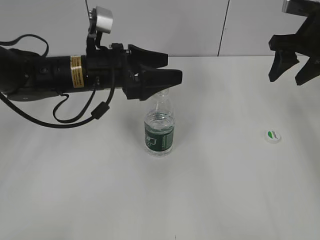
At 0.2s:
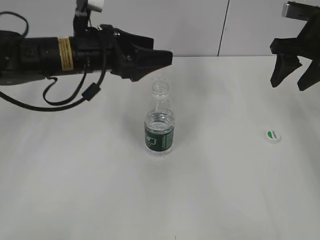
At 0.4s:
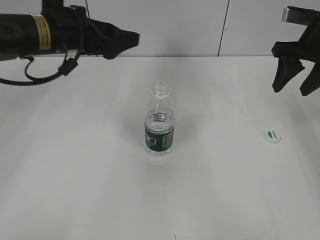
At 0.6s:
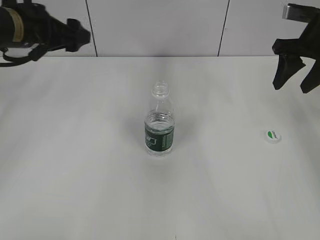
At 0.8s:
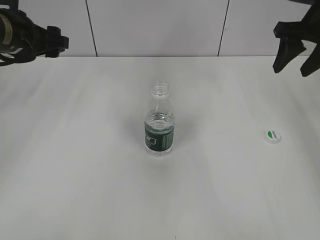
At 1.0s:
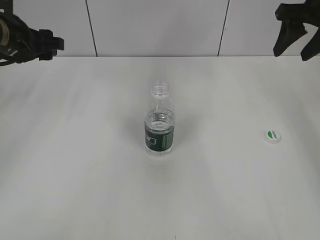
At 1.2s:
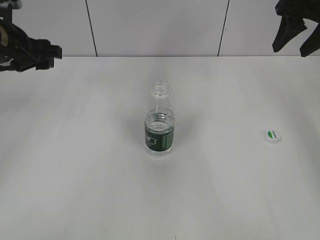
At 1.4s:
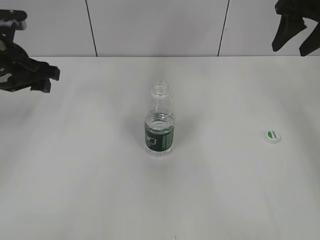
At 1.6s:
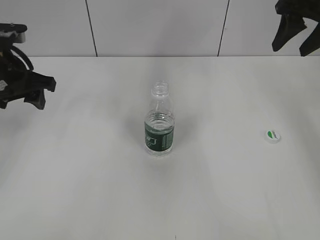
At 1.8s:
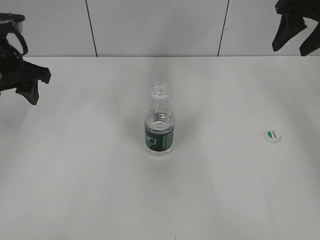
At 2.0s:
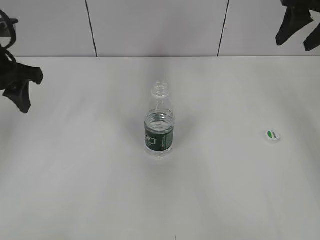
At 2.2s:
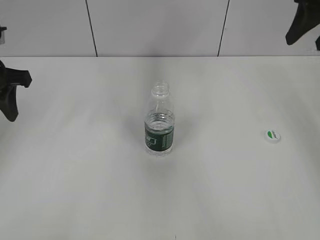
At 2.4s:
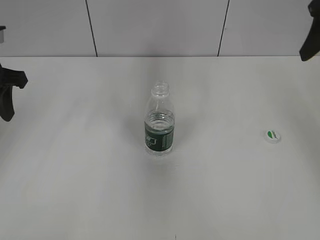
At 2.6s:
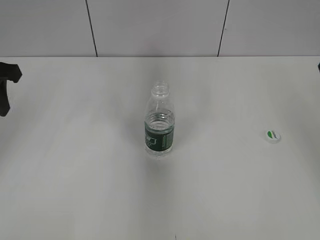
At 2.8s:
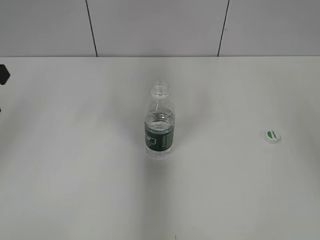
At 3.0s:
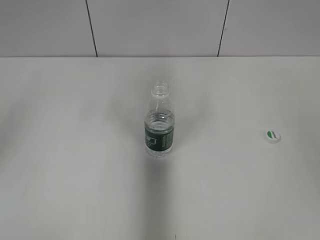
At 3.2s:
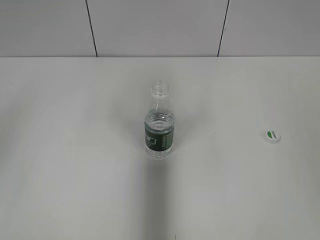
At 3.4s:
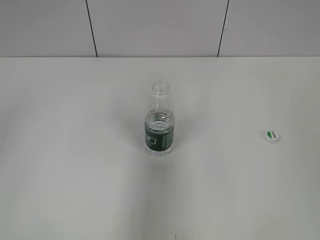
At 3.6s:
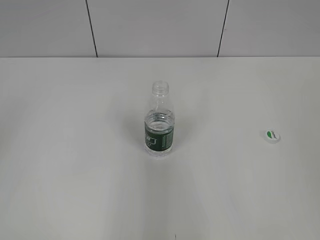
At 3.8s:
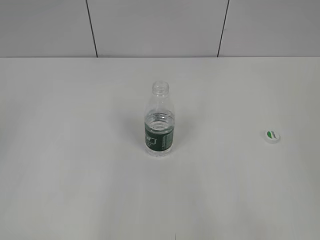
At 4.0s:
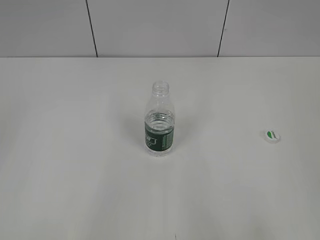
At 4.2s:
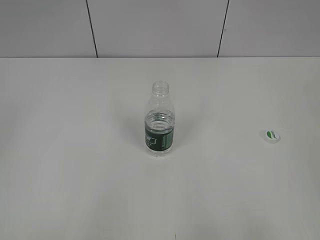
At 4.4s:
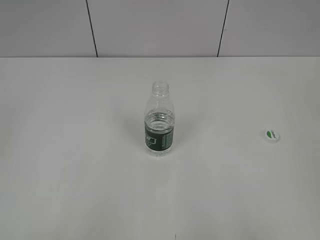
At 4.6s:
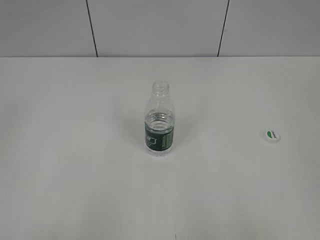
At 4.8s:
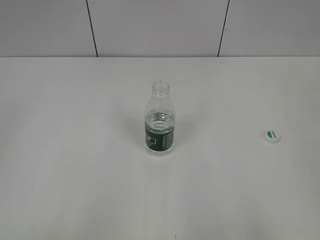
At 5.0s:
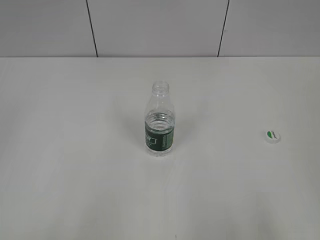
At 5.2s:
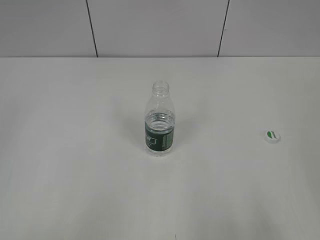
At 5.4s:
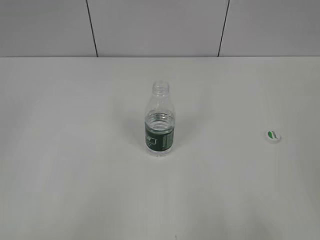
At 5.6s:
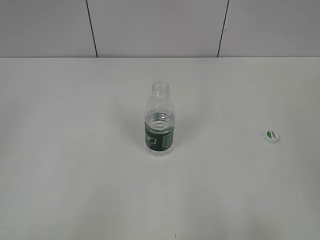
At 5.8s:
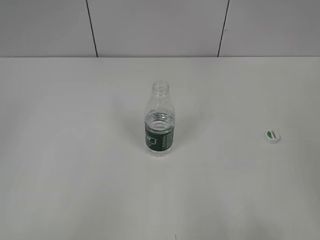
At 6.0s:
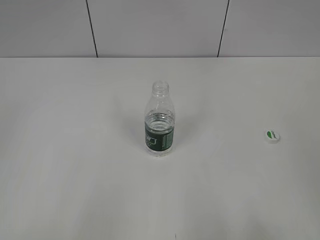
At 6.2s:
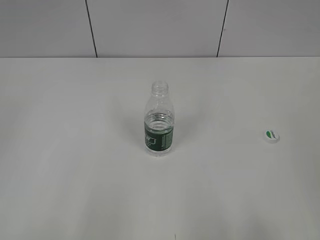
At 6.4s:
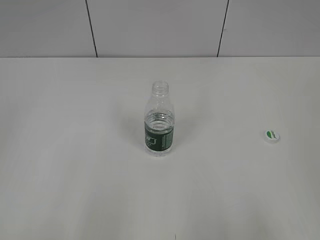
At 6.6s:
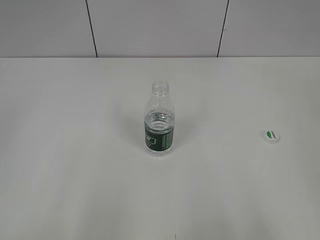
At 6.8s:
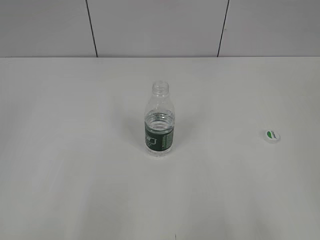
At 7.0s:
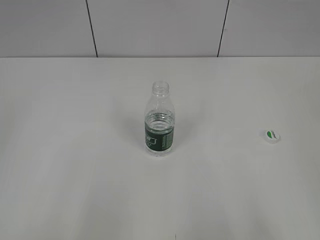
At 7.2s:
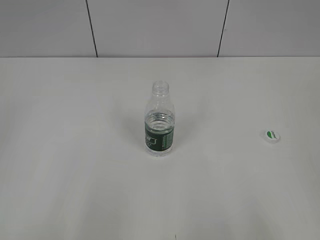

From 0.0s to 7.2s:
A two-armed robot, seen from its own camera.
From 0.0s to 1.4s: The left gripper is displaced to the left by some 15 cm, while the right gripper travels upward by some 5 cm.
From 1.4s to 2.8s: The left gripper moves backward and upward, about 10 cm, and closes. The right gripper is displaced backward by some 15 cm.
From 2.8s to 4.4s: The two grippers go roughly 30 cm backward.

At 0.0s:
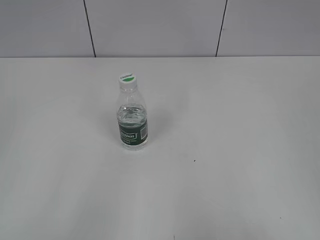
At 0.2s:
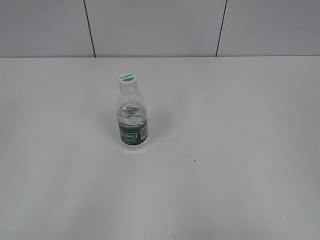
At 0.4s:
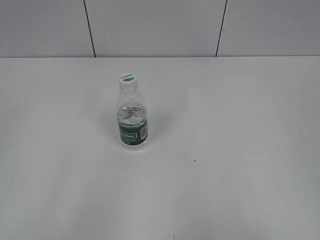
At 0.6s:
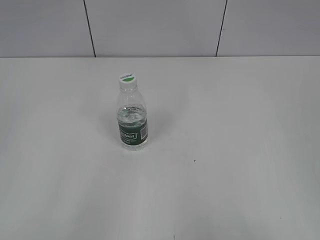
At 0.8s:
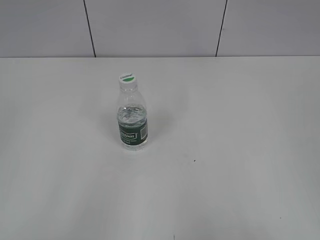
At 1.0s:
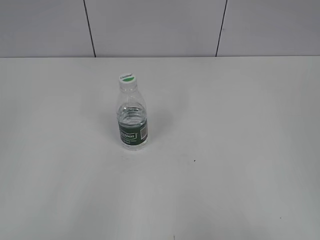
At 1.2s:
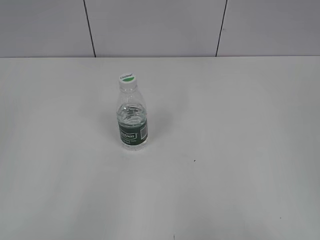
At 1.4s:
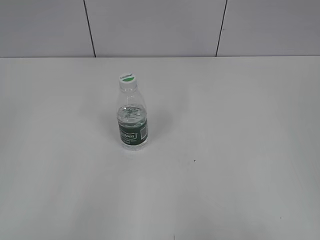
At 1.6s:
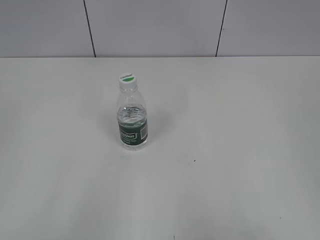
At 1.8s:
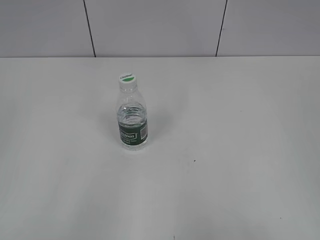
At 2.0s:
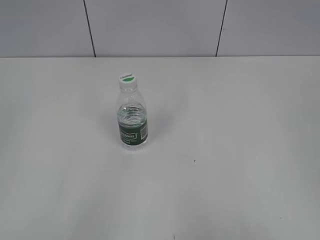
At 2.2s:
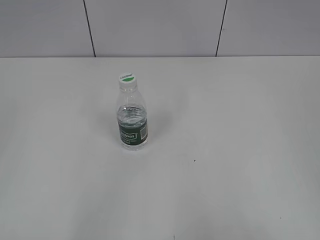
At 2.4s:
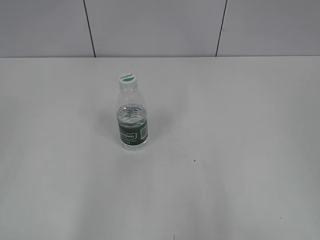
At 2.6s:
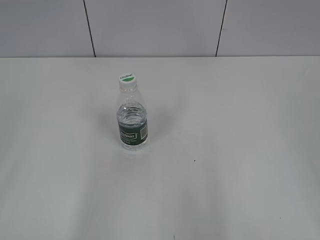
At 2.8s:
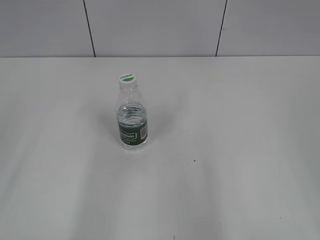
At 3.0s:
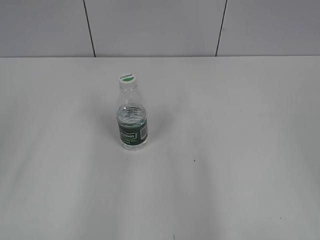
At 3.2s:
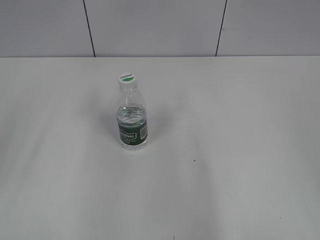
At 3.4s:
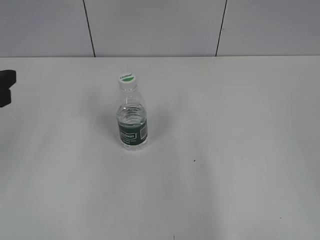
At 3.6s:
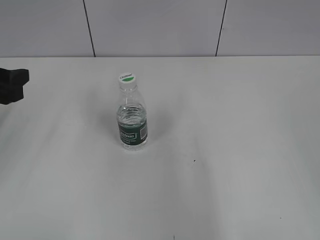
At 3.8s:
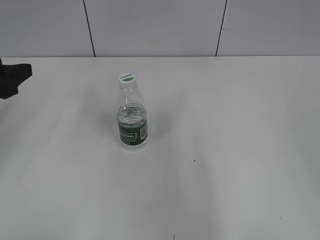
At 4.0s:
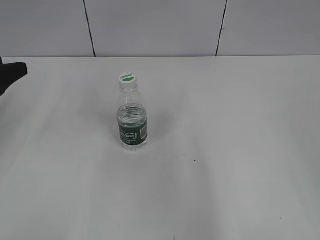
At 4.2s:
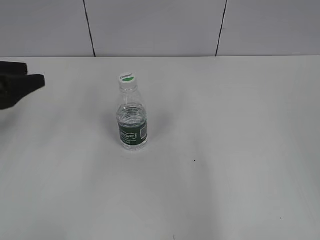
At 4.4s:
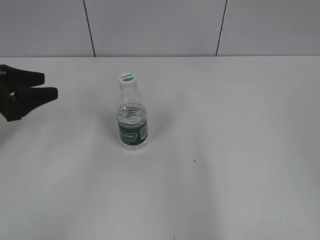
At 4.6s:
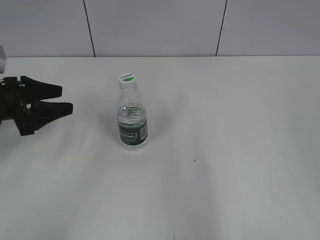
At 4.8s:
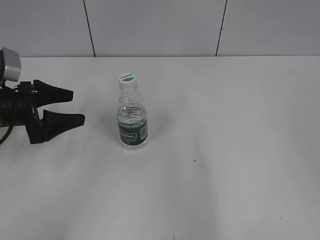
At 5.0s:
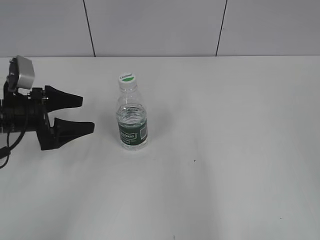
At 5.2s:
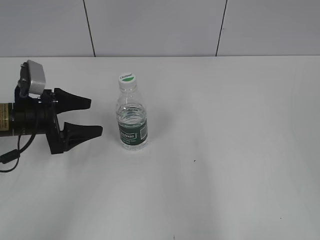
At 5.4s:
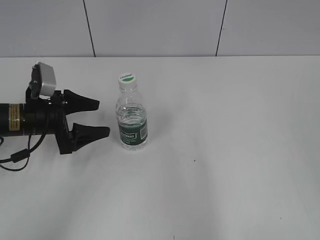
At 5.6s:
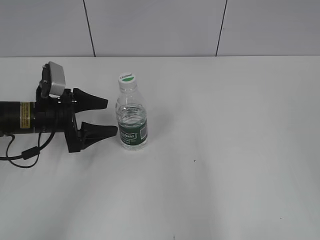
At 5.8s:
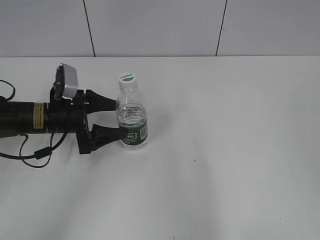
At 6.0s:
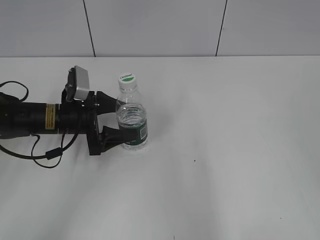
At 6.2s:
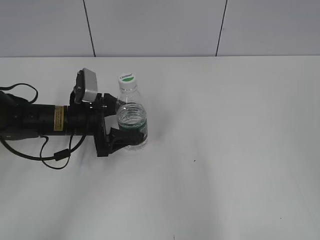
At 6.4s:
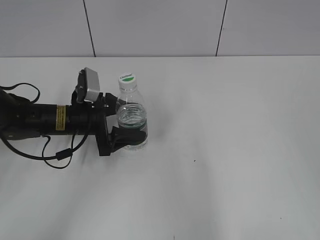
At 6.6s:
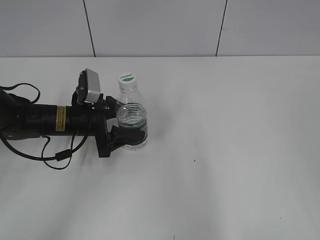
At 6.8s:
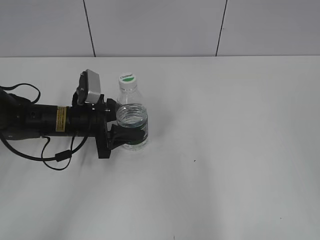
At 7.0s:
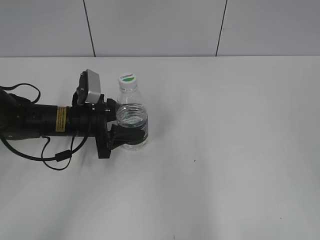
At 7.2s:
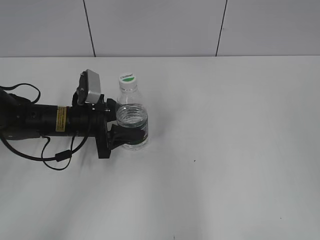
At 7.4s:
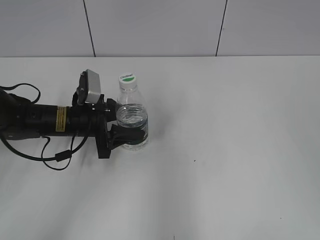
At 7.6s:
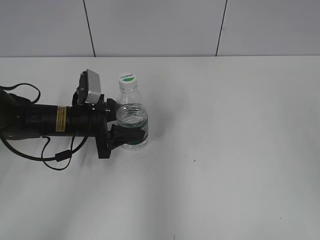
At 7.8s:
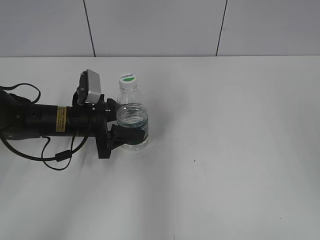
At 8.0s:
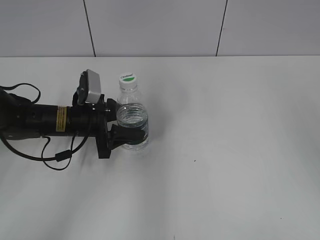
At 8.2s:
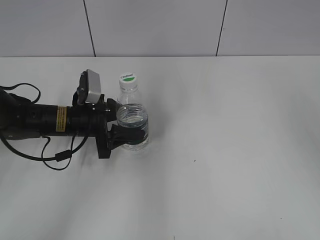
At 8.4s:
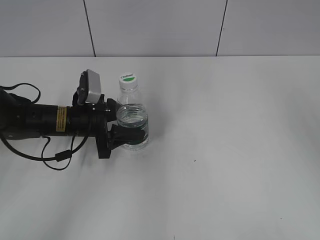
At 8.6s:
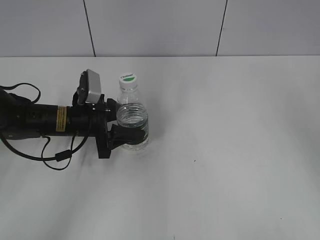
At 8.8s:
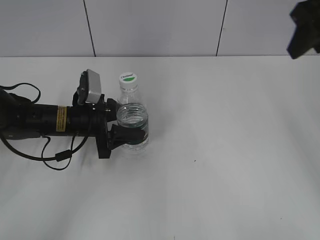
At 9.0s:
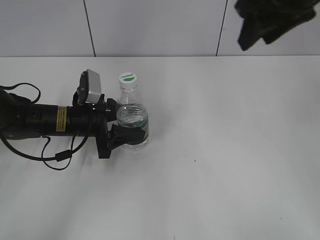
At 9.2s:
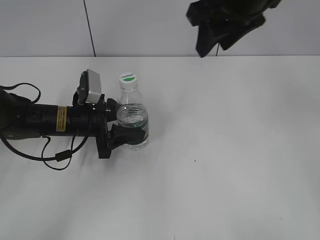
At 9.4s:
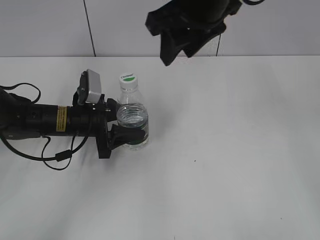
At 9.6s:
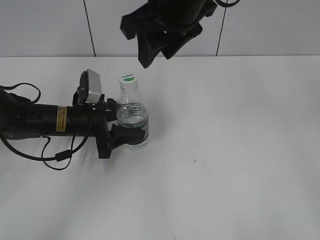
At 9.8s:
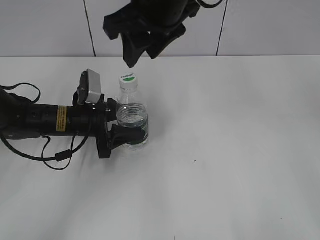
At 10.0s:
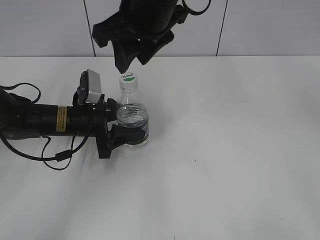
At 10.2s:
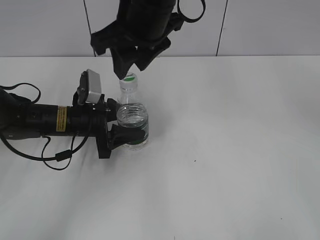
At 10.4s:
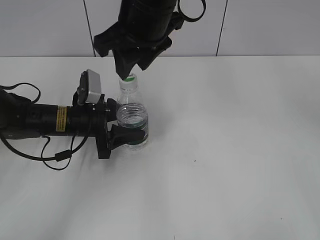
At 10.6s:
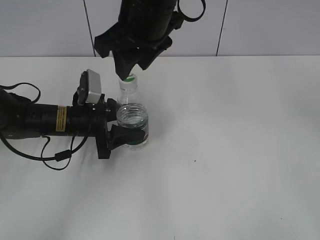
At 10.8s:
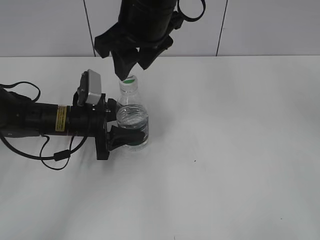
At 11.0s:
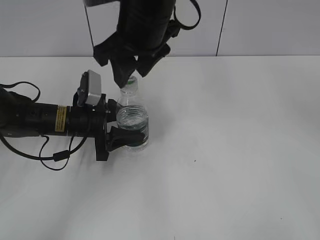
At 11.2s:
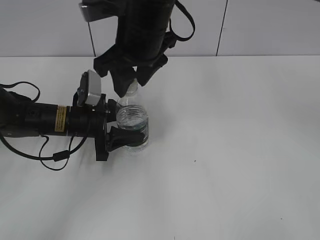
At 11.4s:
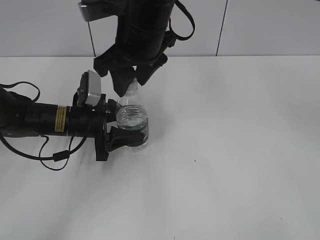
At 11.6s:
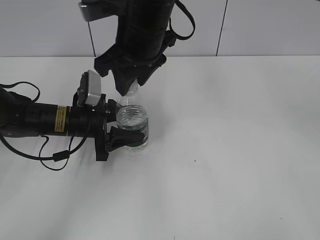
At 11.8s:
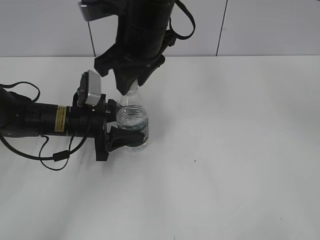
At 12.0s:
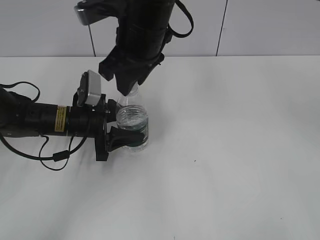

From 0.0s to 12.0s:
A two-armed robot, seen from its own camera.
Step, from 0.0s to 7.0s: Grasp the bottle and move it to the center of the table with the left gripper.
From 3.0s to 4.4s: The left gripper shifts roughly 20 cm forward and downward.
From 4.4s to 6.0s: The left gripper travels to the right and downward by approximately 15 cm, and opens up.
From 6.0s to 7.6s: The left gripper closes its fingers. Meanwhile the right gripper goes about 10 cm forward.
From 7.6s to 9.0s: The right gripper shifts roughly 20 cm forward and to the left.
From 9.0s to 10.4s: The right gripper heads to the left, covering some 15 cm.
From 10.4s to 12.0s: The grippers move only a little.

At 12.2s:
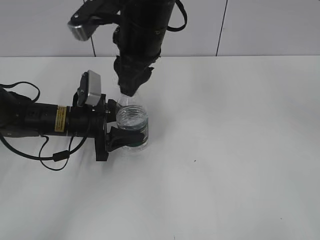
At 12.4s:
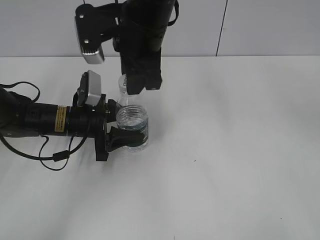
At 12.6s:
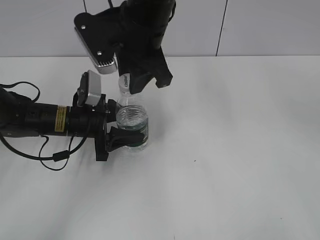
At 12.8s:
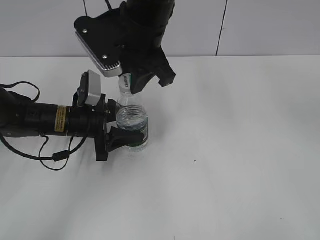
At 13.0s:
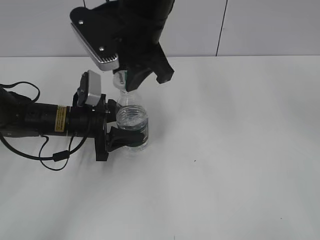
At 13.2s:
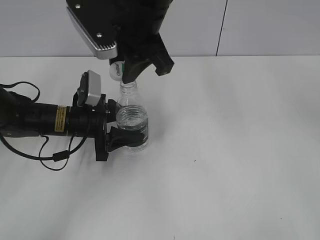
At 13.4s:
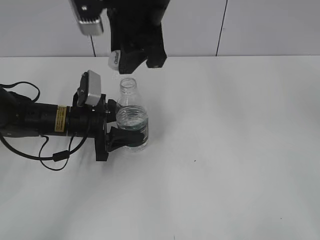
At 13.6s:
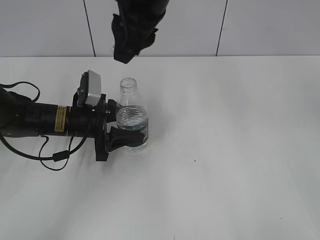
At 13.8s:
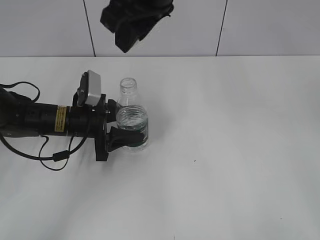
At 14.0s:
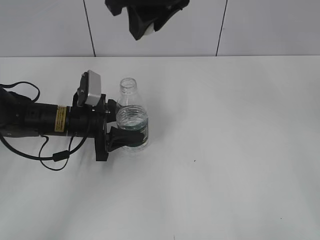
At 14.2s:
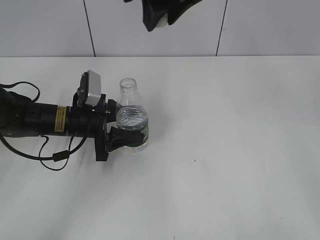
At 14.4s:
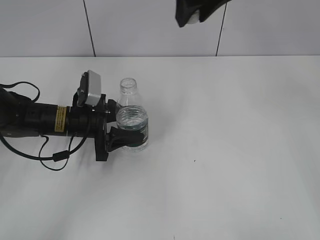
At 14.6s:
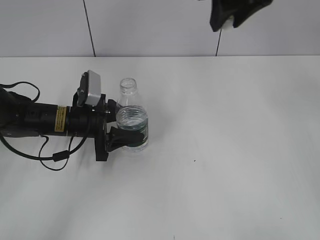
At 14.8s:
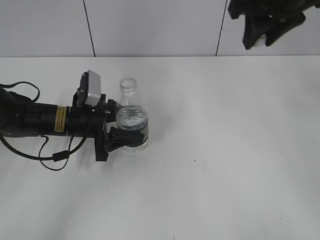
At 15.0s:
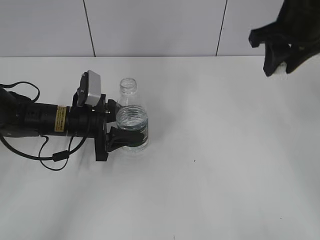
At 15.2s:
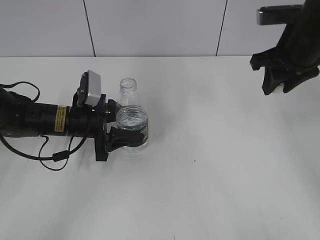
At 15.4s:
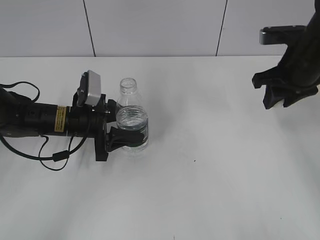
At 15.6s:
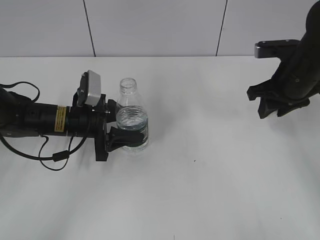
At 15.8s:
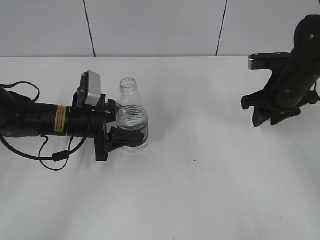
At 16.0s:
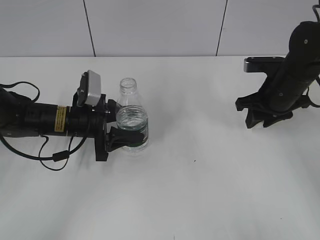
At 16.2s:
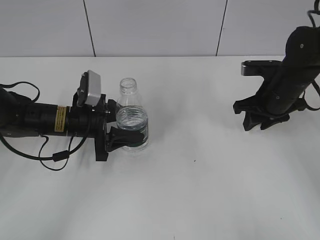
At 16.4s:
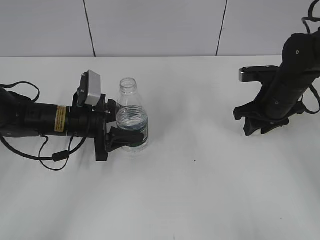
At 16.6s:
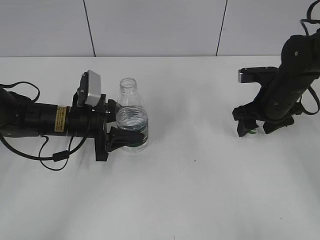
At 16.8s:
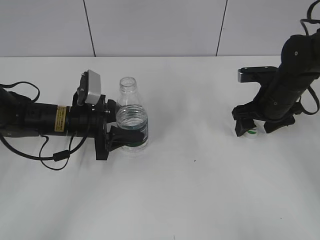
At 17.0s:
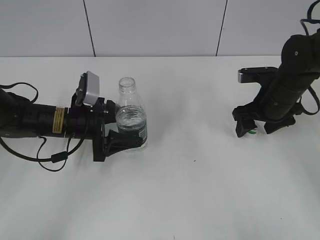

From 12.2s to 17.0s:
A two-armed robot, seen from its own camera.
Step, from 13.4s to 16.8s: Place the bottle cap on the table with the right gripper.
From 12.2s to 13.8s: The right gripper goes approximately 10 cm upward.
From 13.8s to 15.4s: The right gripper shifts some 25 cm to the right and downward.
From 15.4s to 17.0s: The right gripper goes approximately 10 cm downward, and opens its fingers.
